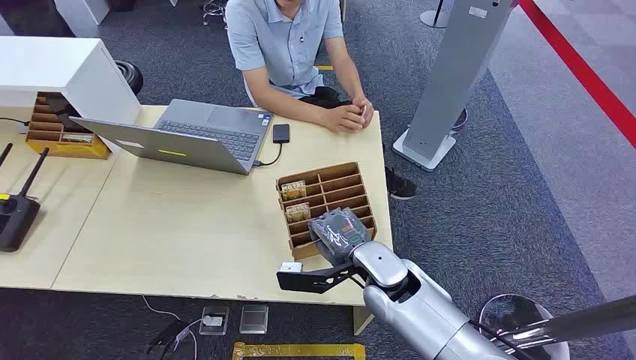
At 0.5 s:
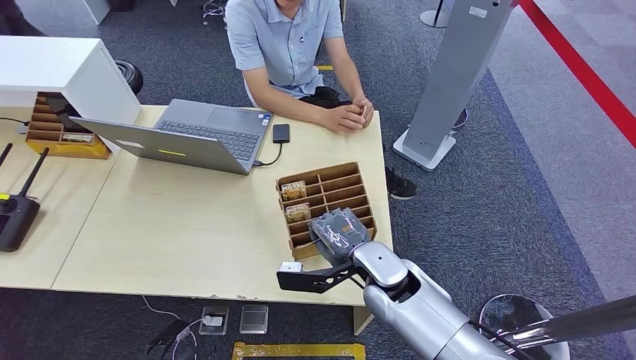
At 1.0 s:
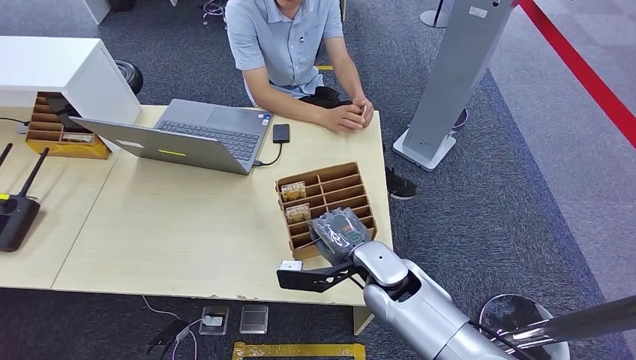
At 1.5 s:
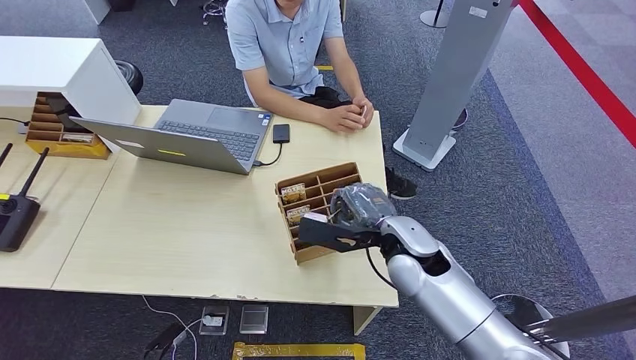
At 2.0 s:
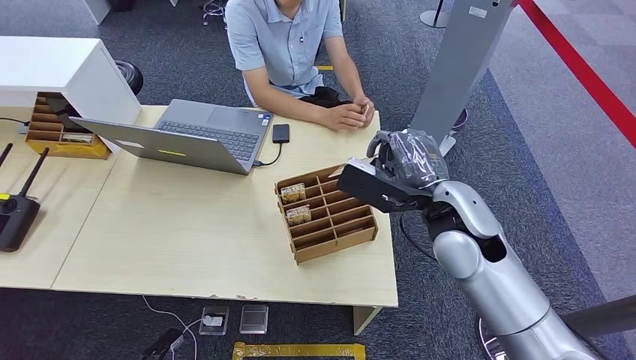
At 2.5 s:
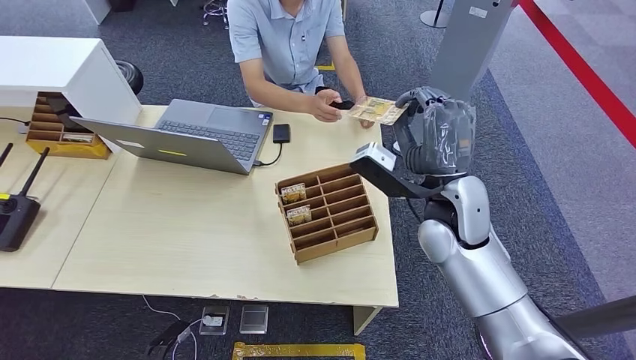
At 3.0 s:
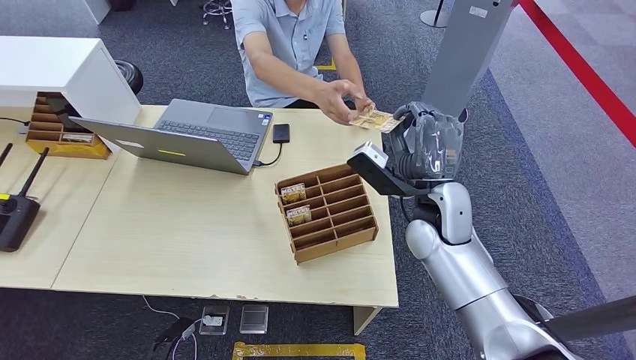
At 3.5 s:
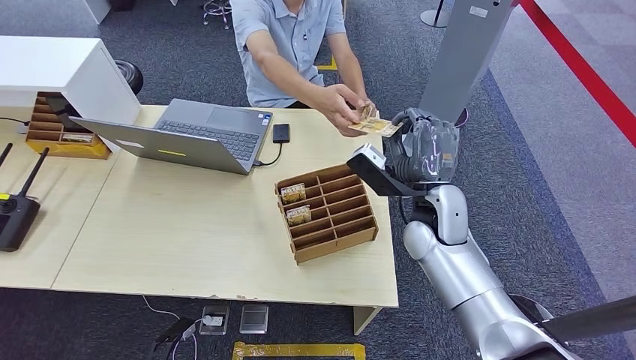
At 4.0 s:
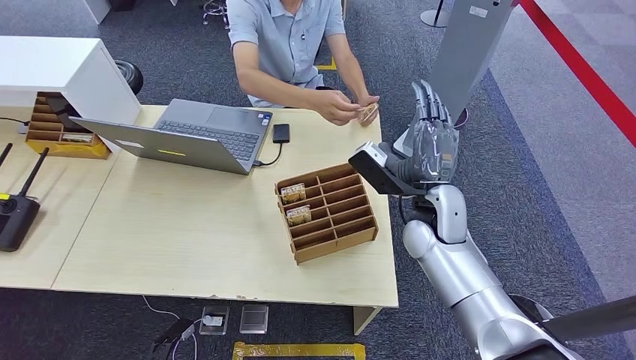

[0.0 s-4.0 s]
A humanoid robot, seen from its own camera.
Step, 0.0 to 1.5 s: Pick up the key card from the card box.
Step, 3.0 to 4.0 s: Hand the key card to the target.
2.0 to 4.0 s: The right hand is displaced downward by about 5 cm.
